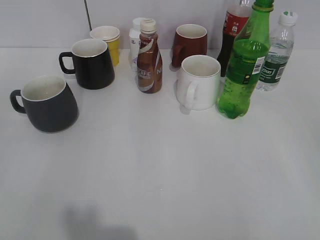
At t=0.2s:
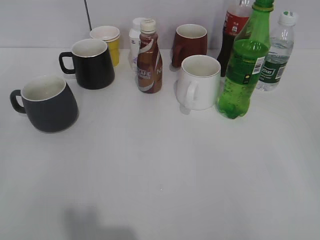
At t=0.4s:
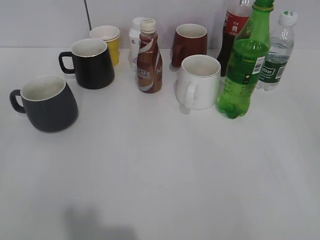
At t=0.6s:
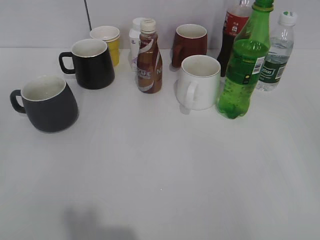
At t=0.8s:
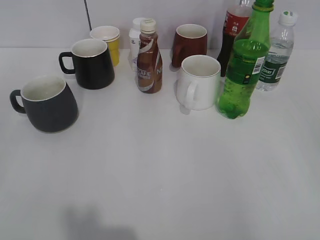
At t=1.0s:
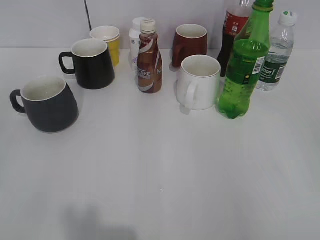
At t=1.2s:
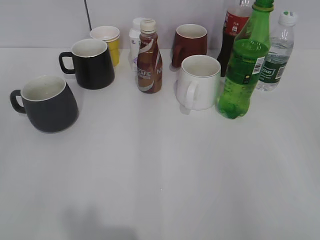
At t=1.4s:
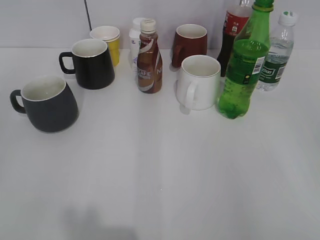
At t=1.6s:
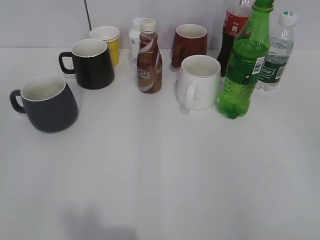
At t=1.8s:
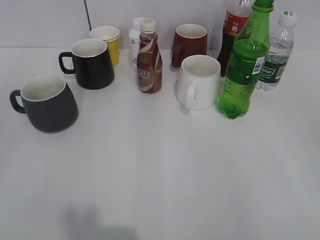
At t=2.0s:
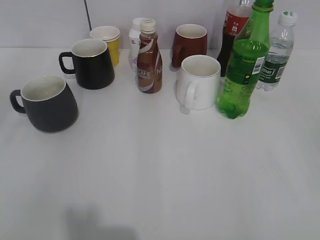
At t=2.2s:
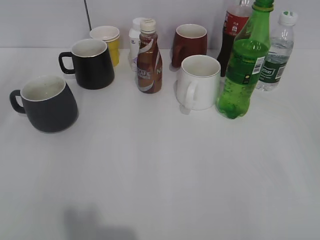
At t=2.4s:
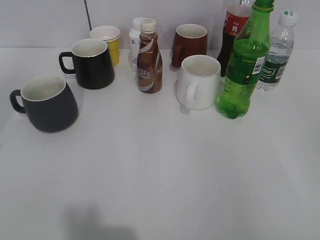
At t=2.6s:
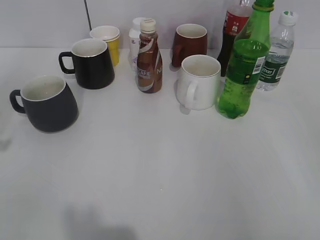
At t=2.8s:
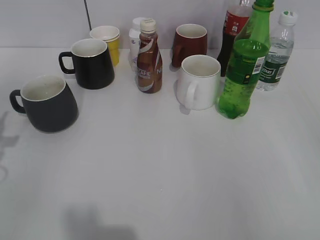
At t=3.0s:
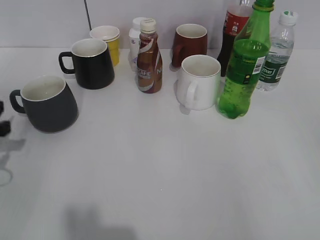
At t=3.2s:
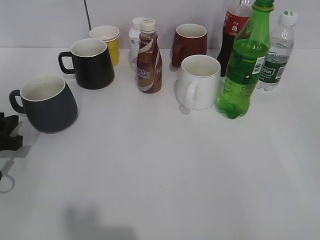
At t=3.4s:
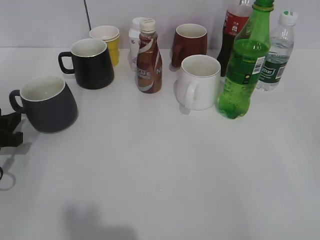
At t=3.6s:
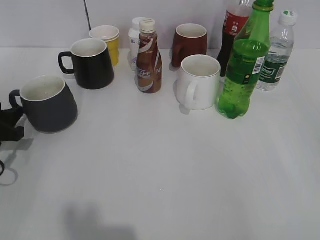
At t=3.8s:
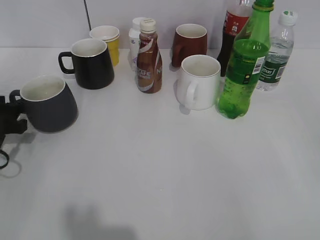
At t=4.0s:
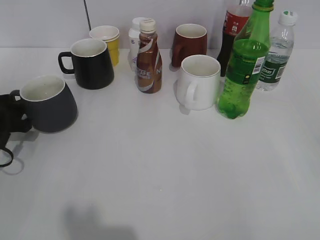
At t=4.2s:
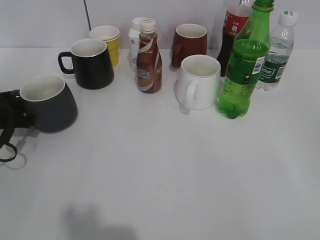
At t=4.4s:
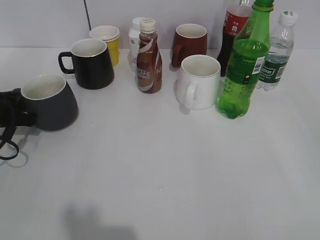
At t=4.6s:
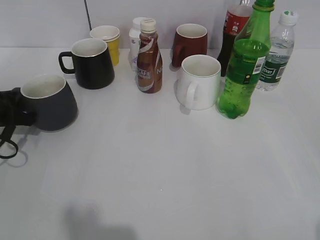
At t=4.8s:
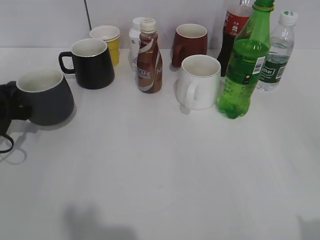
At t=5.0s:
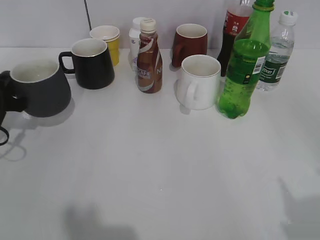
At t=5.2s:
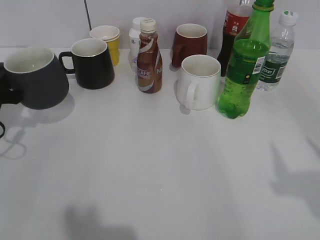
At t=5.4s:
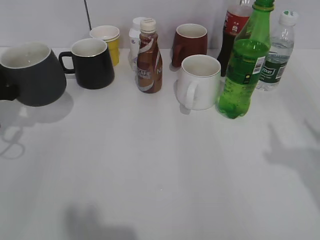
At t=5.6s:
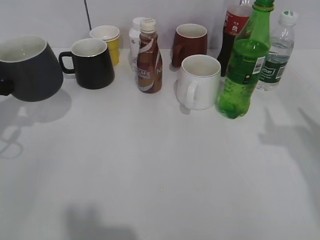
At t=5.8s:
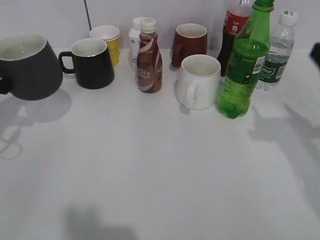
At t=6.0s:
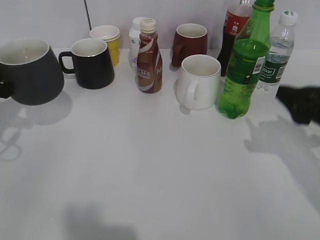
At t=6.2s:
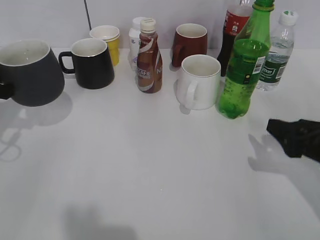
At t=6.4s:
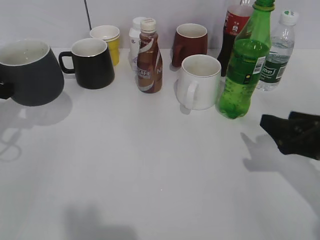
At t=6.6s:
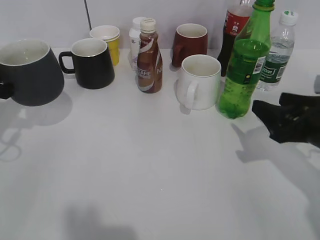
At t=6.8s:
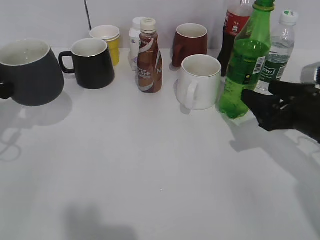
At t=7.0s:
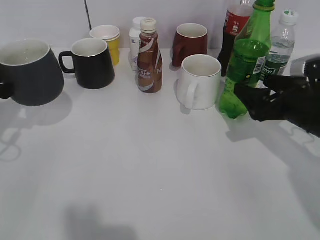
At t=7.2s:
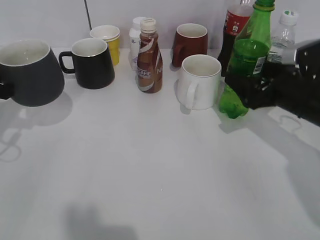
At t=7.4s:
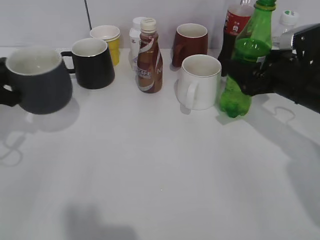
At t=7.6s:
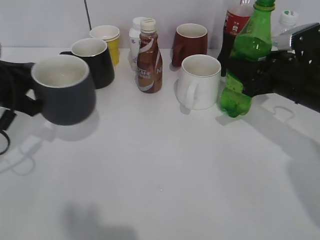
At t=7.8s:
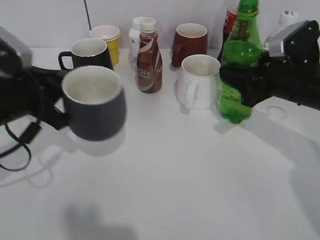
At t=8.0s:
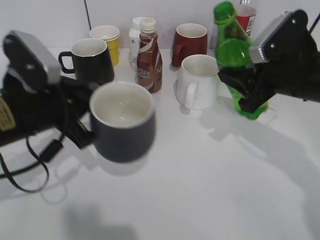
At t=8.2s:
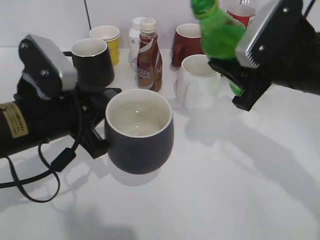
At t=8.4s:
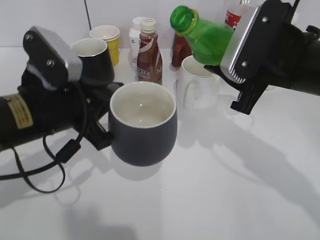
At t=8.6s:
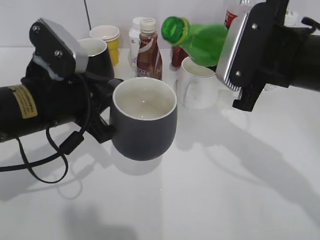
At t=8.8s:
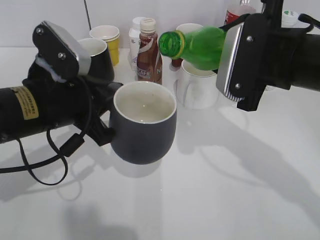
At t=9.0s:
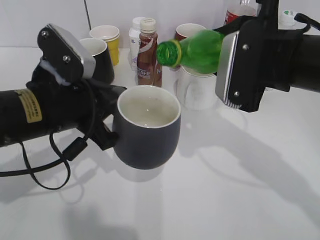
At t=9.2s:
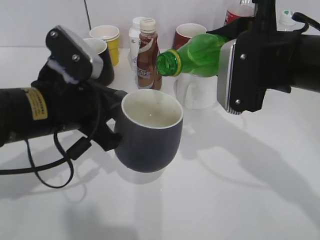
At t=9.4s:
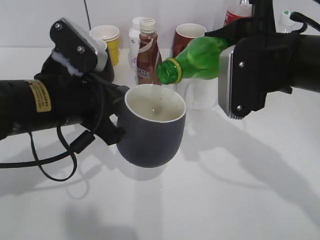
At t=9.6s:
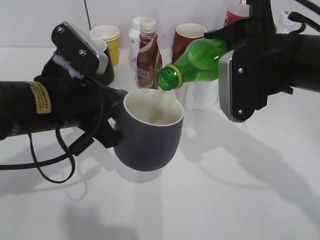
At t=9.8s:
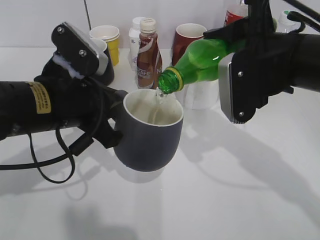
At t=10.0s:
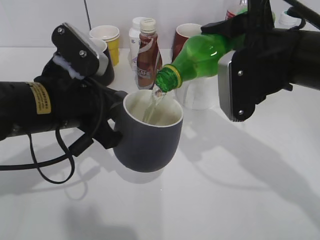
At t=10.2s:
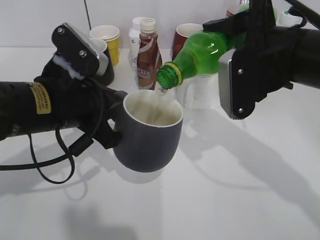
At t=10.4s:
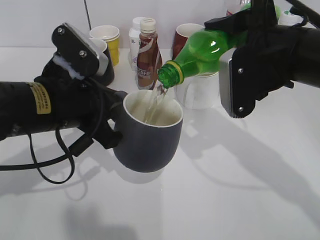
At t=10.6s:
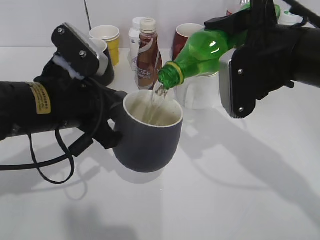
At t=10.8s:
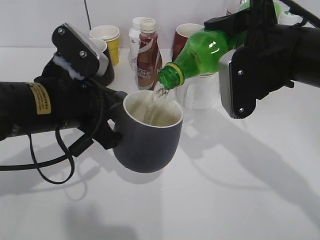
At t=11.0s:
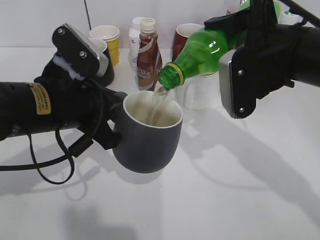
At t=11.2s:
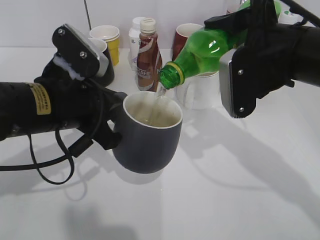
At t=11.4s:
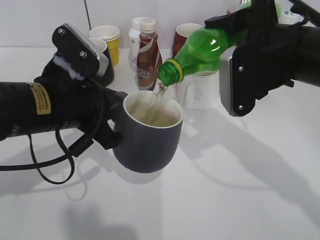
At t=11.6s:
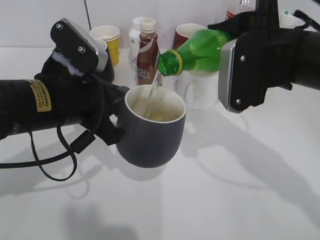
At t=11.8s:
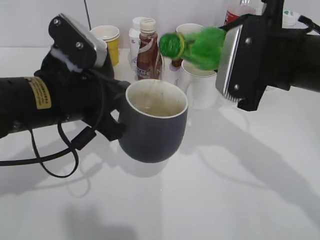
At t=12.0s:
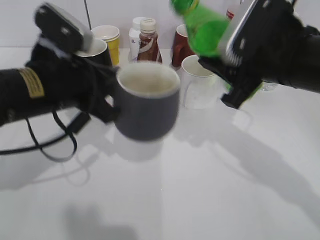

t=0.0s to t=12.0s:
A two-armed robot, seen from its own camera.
Step, t=1.8s to t=4.4s: Grasp the grey cup with left gripper.
Step, t=4.6s to t=5.8s: Lift the grey cup with left gripper.
Step, t=6.0s to t=7.4s: Grasp the bottle with sprite with right gripper.
Step, t=7.6s to t=11.8s: Pour the sprite from bottle to cup with right gripper.
t=1.6s to t=3.0s: The left gripper moves forward and downward, approximately 25 cm.
t=3.0s to t=4.4s: The left gripper goes about 5 cm forward, and closes.
t=4.4s to t=6.0s: The right gripper travels forward by about 20 cm, while the left gripper heads upward, covering some 10 cm.
t=6.0s to t=7.6s: The right gripper moves forward, roughly 10 cm, and closes up.
t=7.6s to t=9.0s: The left gripper travels to the right by about 10 cm. Meanwhile the right gripper goes roughly 15 cm upward, to the left and backward.

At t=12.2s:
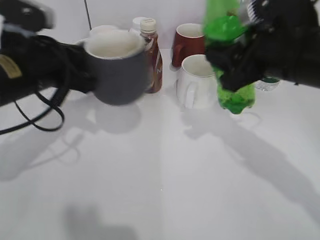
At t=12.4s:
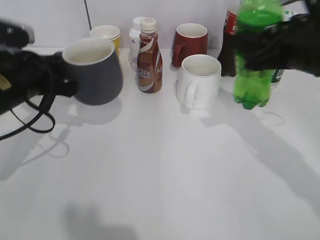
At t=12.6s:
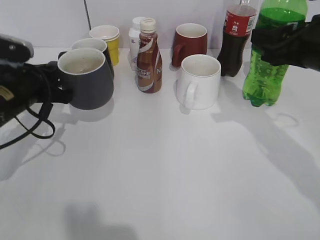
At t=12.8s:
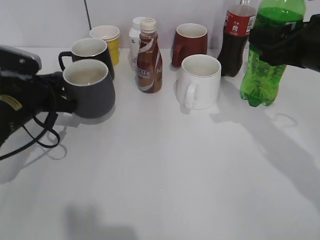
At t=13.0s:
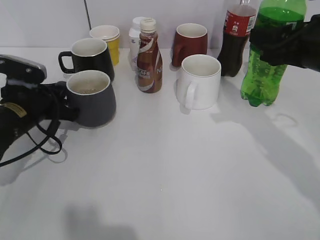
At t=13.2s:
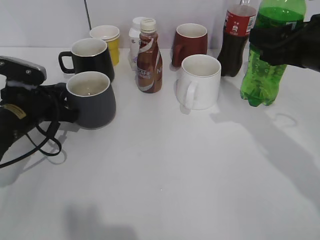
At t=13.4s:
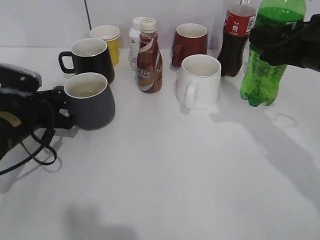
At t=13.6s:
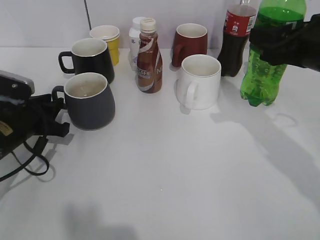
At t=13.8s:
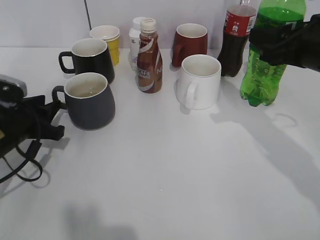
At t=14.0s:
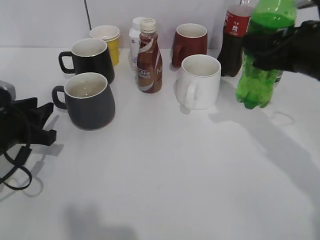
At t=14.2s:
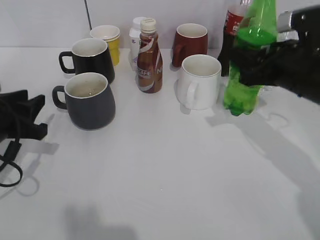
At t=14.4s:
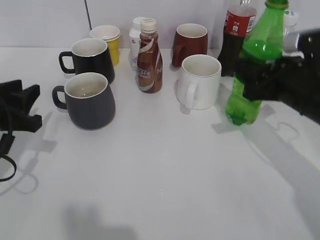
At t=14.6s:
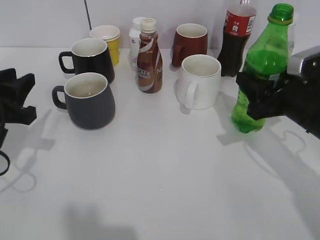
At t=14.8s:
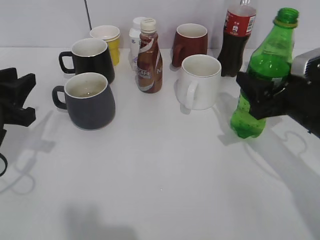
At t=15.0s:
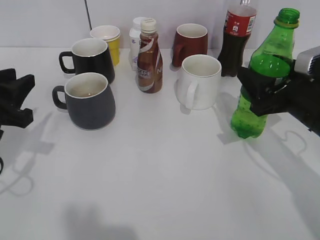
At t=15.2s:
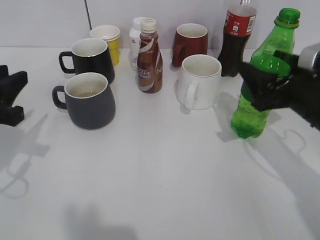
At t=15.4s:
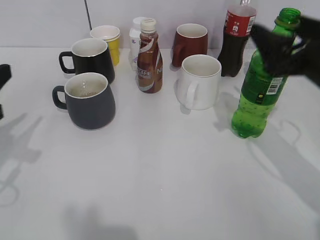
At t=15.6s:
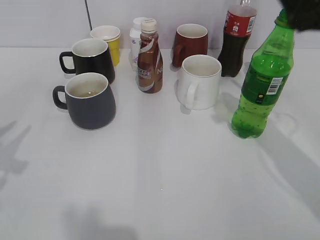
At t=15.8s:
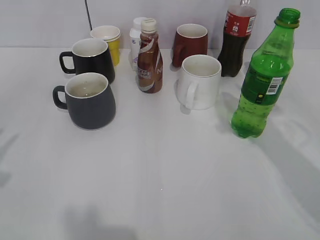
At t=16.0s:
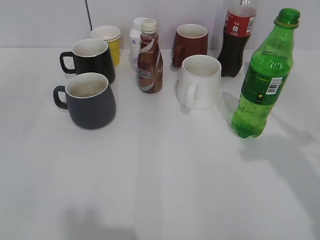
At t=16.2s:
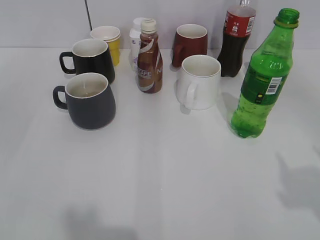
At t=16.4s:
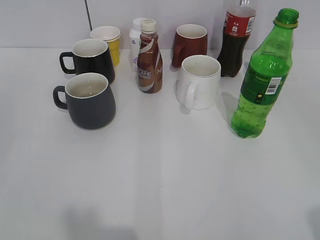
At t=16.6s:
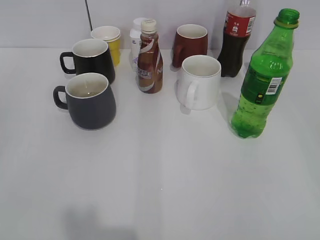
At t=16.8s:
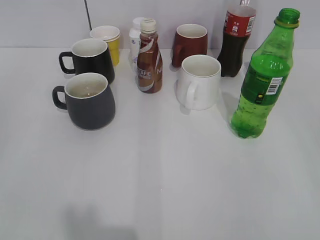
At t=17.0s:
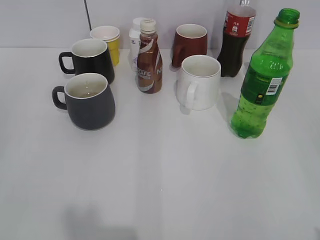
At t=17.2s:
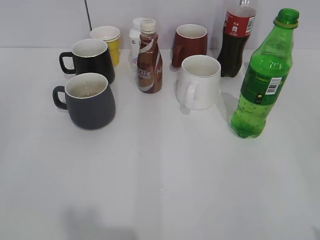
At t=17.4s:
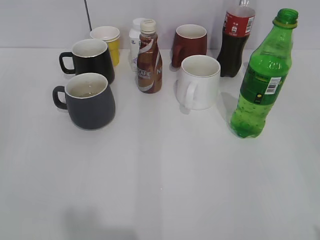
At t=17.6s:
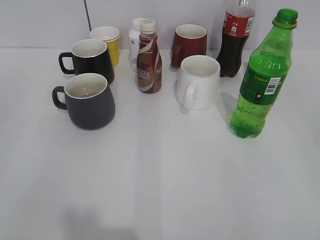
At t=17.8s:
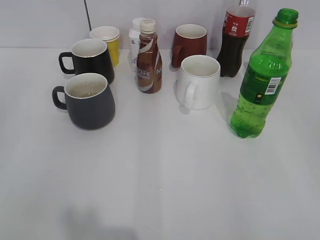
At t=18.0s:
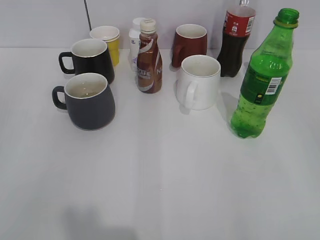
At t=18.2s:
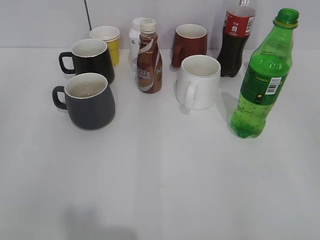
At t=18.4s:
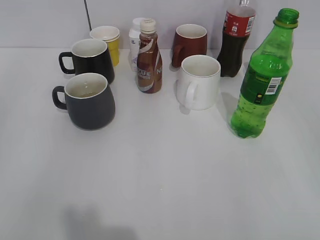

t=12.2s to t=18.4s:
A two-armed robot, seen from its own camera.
Step, t=12.2s to t=13.4s: Place the grey cup on the table with left gripper.
Step, t=13.8s to t=15.2s: Place the sprite bottle on the table with right gripper.
t=12.2s to t=13.8s: The left gripper travels downward and to the left by some 15 cm, and opens; the right gripper is displaced to the right by approximately 5 cm.
t=13.8s to t=15.4s: The left gripper is displaced upward and backward by approximately 15 cm. Meanwhile the right gripper moves some 10 cm downward and comes back, and opens its fingers.
t=15.4s to t=16.8s: The right gripper heads backward, covering about 25 cm.
